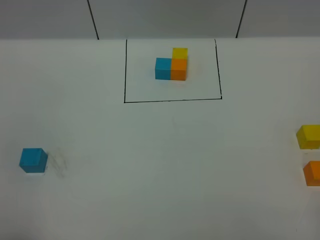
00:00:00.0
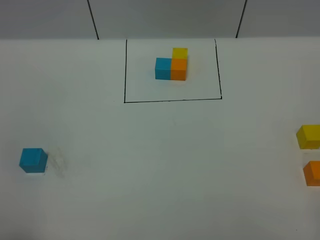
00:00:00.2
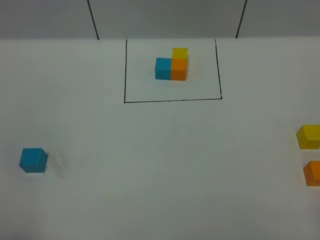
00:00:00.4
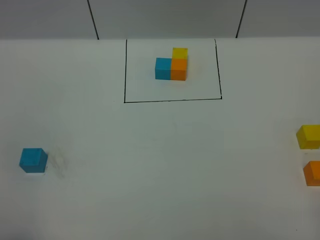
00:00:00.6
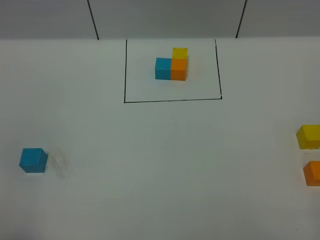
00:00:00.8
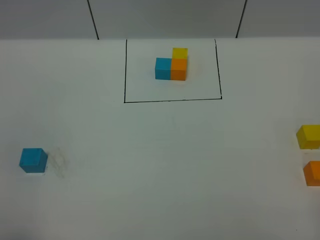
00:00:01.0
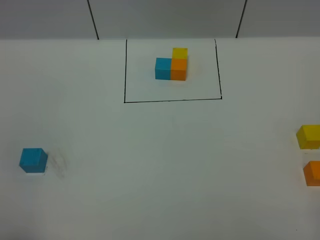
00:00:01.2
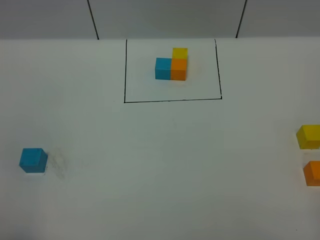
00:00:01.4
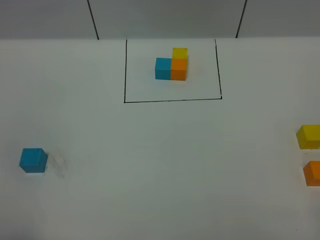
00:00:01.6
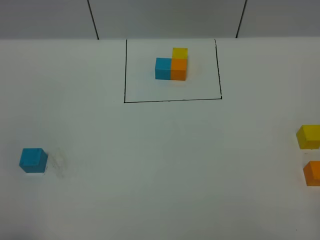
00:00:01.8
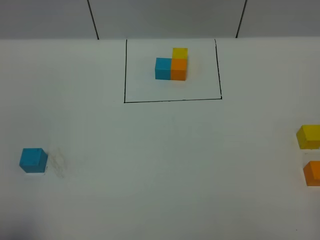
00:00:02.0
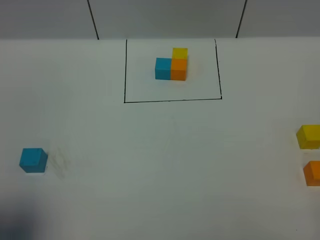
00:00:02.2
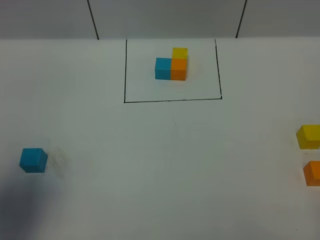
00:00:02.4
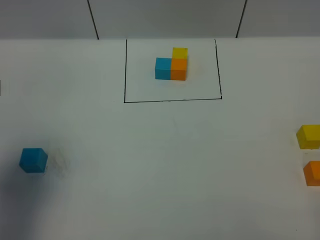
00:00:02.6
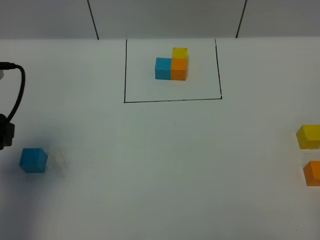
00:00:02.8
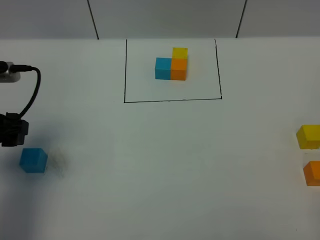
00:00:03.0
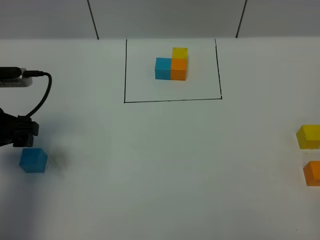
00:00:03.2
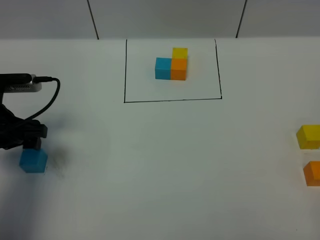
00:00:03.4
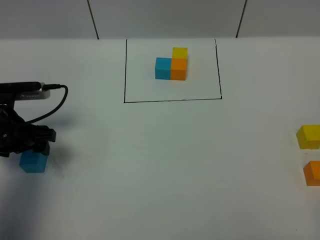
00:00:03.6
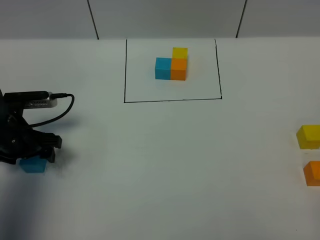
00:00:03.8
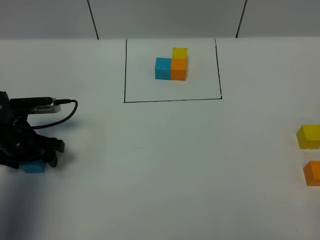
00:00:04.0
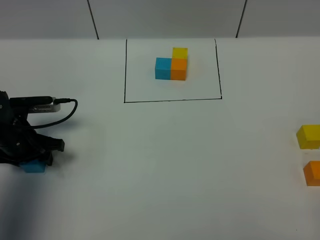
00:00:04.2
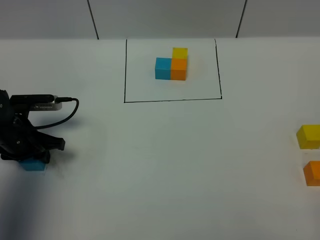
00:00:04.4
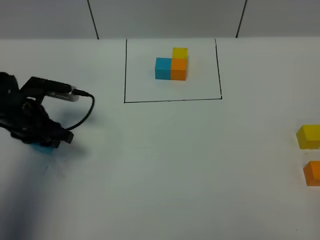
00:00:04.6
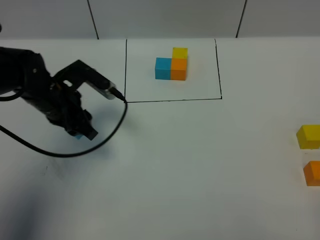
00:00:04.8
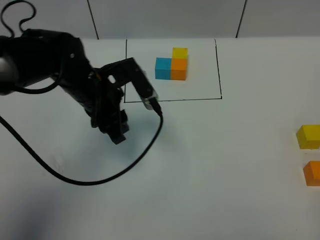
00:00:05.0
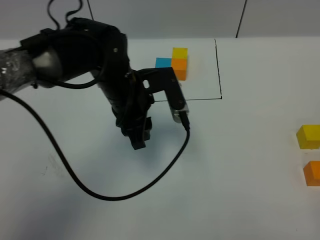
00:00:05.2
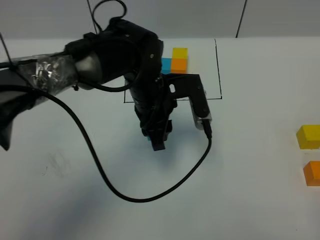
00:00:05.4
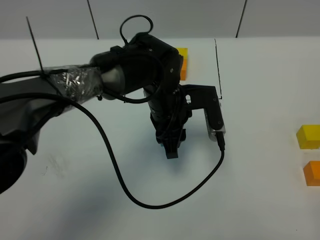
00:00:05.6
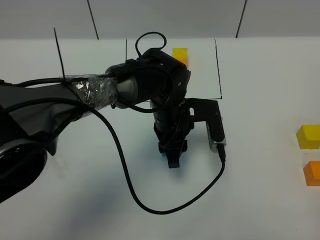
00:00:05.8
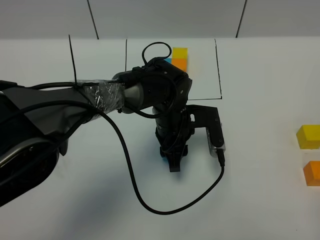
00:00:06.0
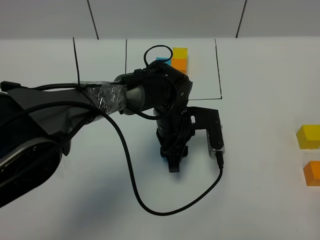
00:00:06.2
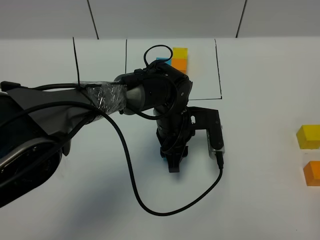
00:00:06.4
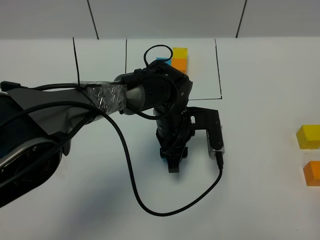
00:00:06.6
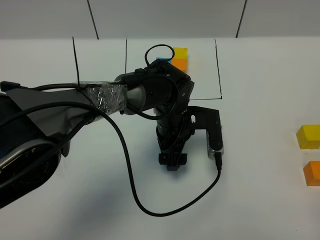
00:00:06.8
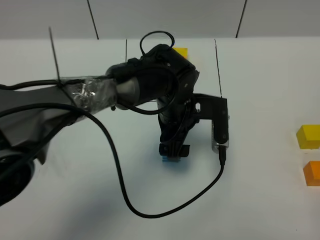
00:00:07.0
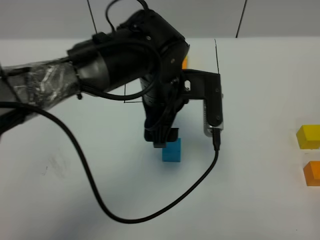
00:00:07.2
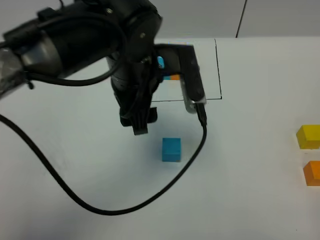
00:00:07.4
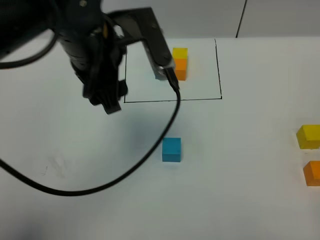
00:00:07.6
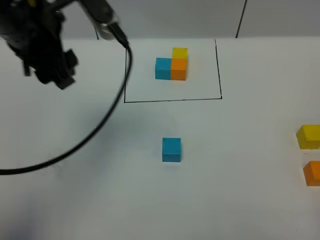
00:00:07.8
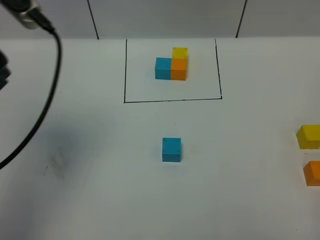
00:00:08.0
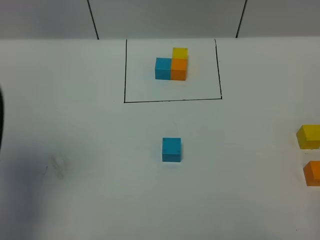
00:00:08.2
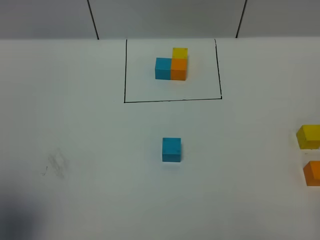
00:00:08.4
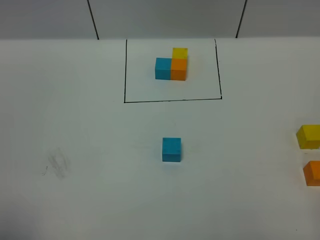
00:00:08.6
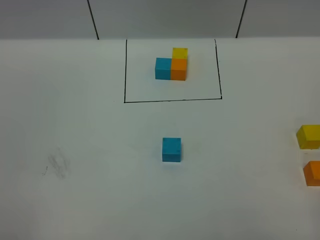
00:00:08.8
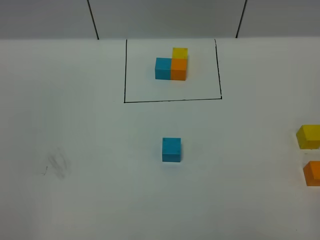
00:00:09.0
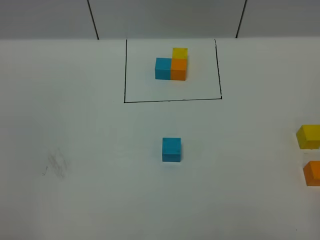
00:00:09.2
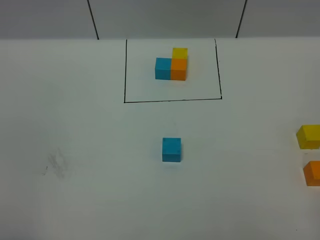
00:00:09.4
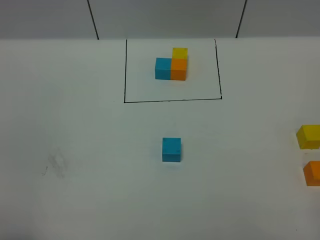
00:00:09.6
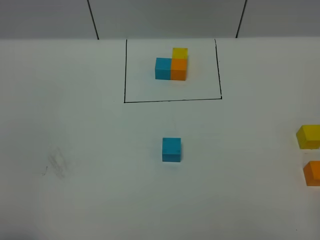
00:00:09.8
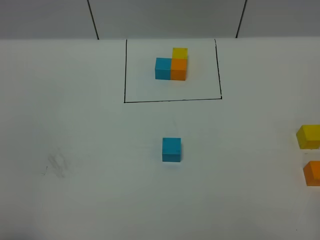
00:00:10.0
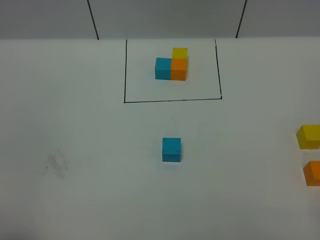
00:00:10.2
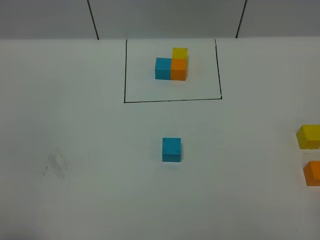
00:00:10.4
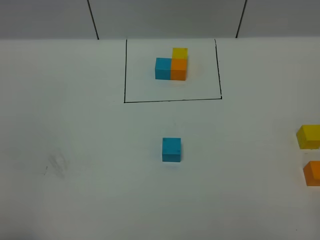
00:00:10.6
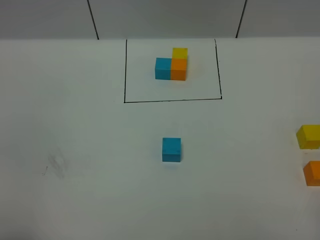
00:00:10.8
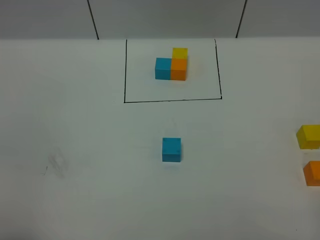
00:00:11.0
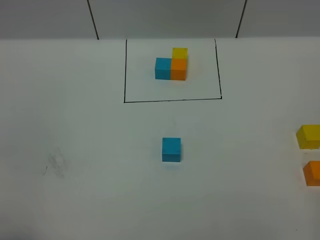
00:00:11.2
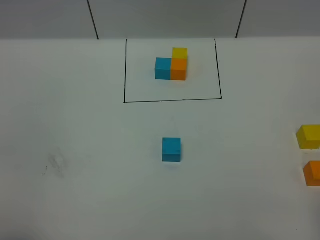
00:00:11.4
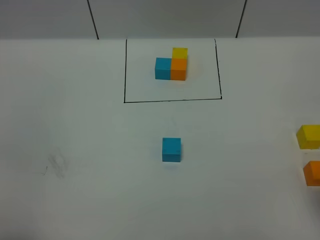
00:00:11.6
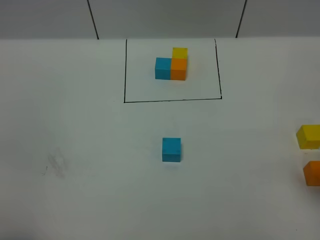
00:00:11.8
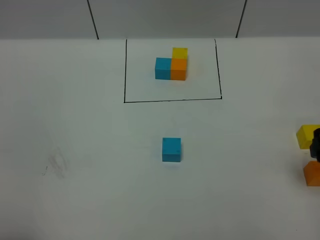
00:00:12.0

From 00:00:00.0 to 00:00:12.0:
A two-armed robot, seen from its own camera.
Task of the whole recording: According to the building block template in front, assemble the scattered blocks together.
Step, from 00:00:02.6 to 00:00:06.8: Put the blue cube in the center of the table.
From 00:00:00.0 to 00:00:01.6: Neither gripper changes place.
From 00:00:01.6 to 00:00:03.0: The left gripper heads forward, covering approximately 25 cm.
From 00:00:03.0 to 00:00:04.4: The left gripper is displaced downward and forward by some 15 cm, and closes.
From 00:00:04.4 to 00:00:06.0: The left gripper is displaced to the right by roughly 30 cm.
From 00:00:06.0 to 00:00:07.6: The left gripper heads upward and to the left, covering about 25 cm, and opens up.
From 00:00:07.6 to 00:00:09.0: The left gripper shifts about 40 cm backward and to the left.
From 00:00:10.4 to 00:00:12.0: The right gripper moves forward, roughly 20 cm, and opens its fingers.

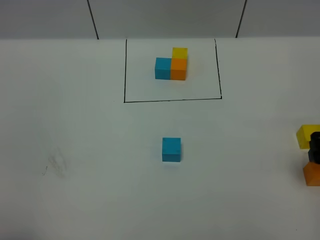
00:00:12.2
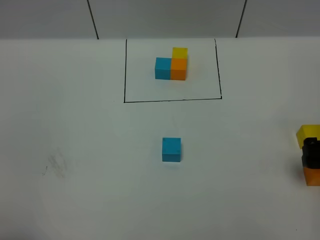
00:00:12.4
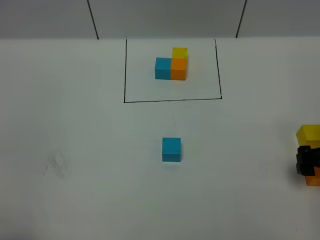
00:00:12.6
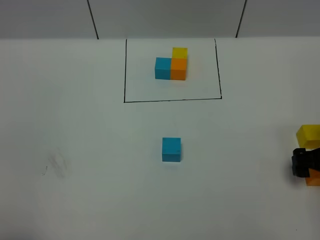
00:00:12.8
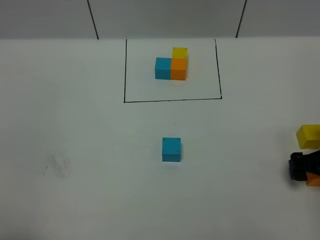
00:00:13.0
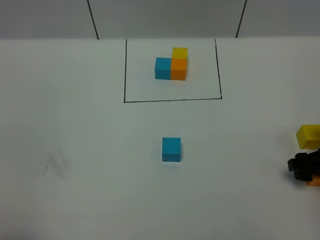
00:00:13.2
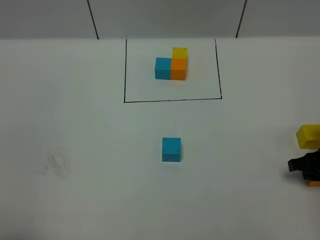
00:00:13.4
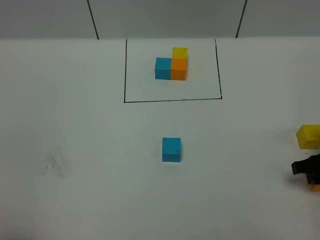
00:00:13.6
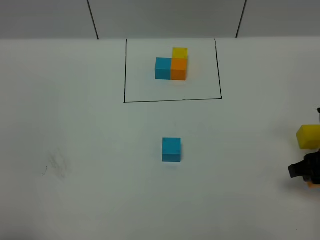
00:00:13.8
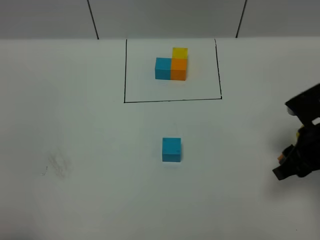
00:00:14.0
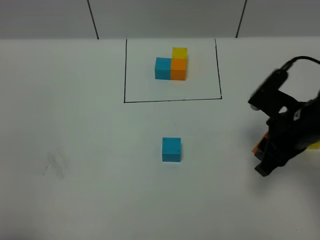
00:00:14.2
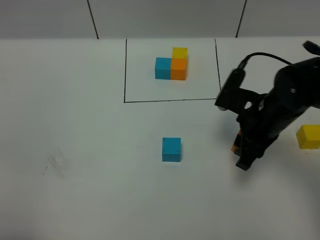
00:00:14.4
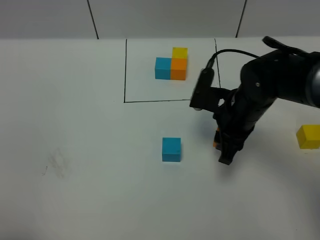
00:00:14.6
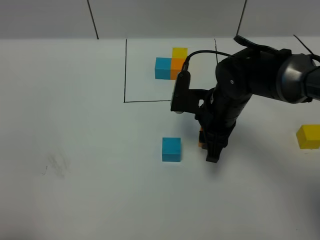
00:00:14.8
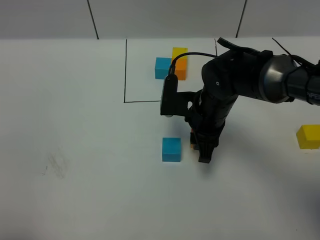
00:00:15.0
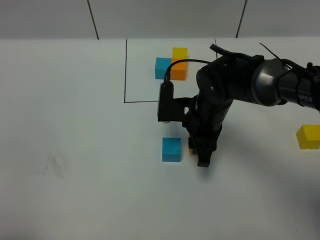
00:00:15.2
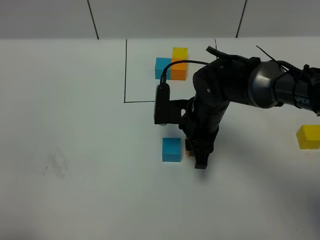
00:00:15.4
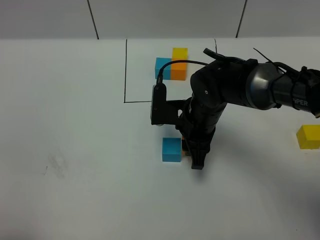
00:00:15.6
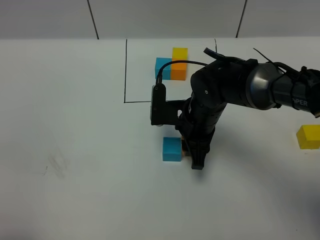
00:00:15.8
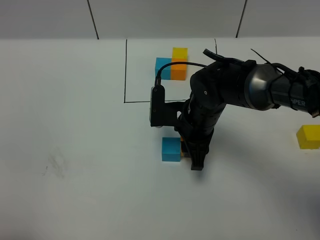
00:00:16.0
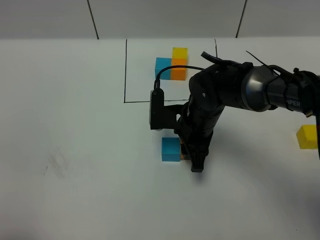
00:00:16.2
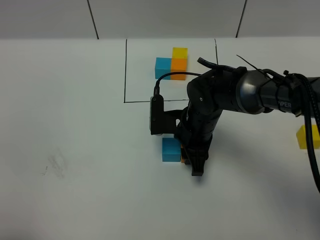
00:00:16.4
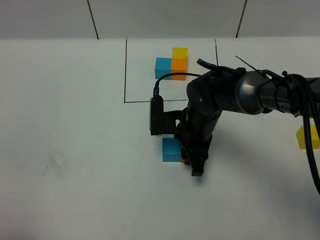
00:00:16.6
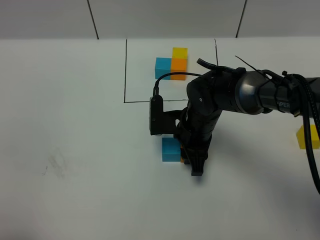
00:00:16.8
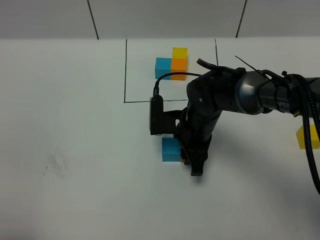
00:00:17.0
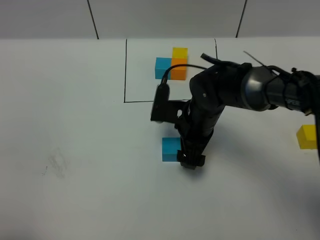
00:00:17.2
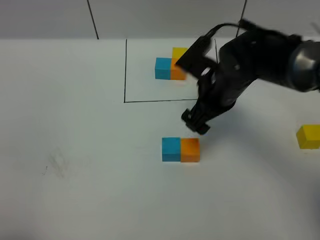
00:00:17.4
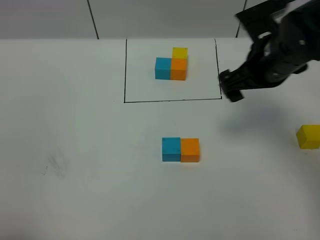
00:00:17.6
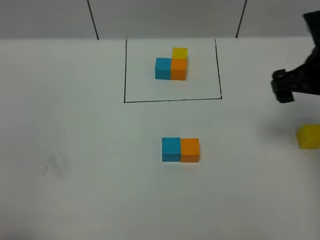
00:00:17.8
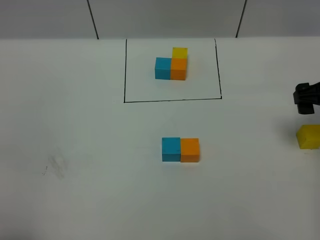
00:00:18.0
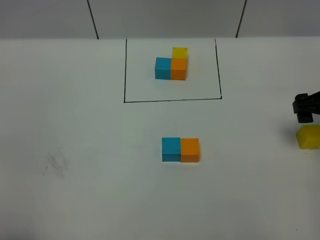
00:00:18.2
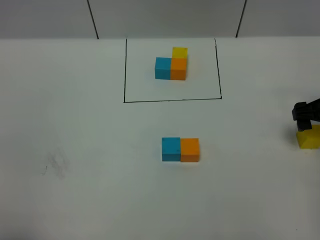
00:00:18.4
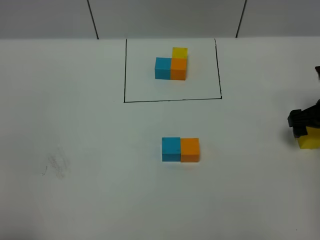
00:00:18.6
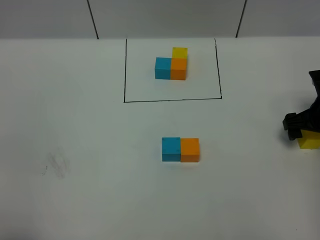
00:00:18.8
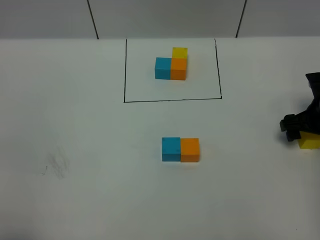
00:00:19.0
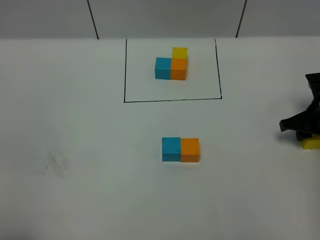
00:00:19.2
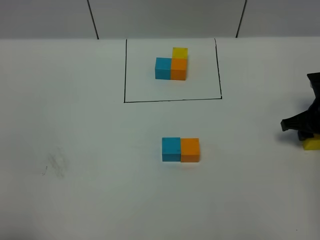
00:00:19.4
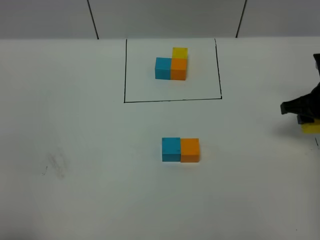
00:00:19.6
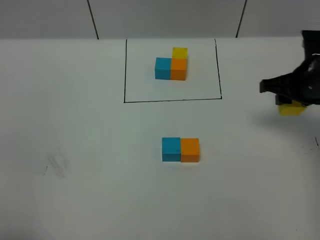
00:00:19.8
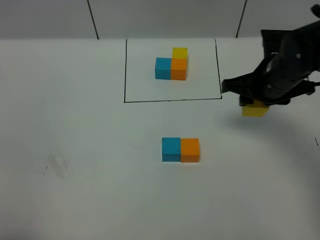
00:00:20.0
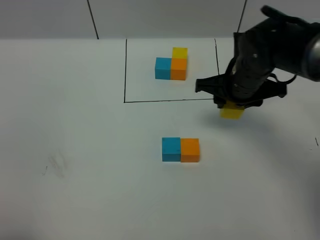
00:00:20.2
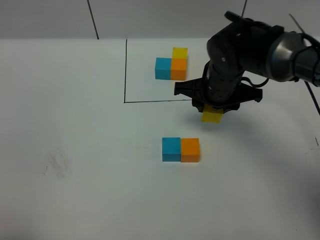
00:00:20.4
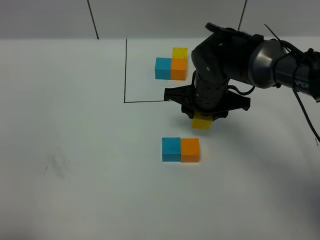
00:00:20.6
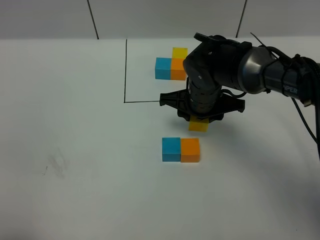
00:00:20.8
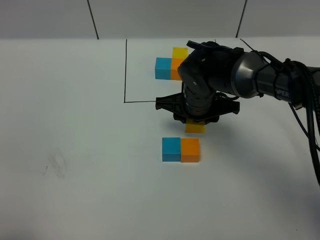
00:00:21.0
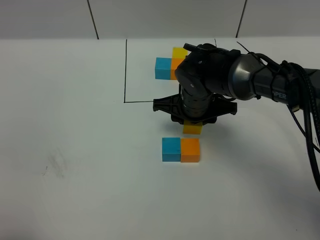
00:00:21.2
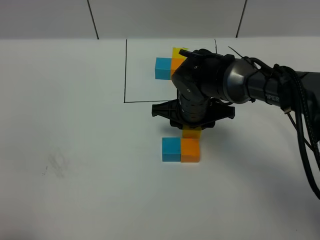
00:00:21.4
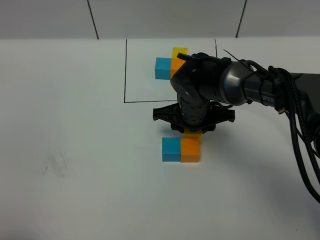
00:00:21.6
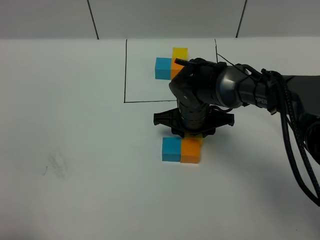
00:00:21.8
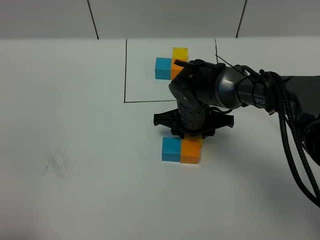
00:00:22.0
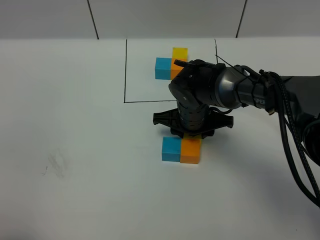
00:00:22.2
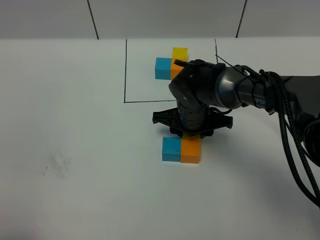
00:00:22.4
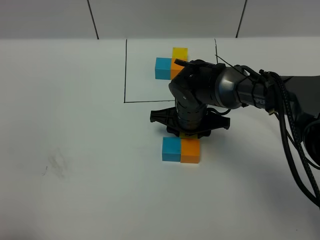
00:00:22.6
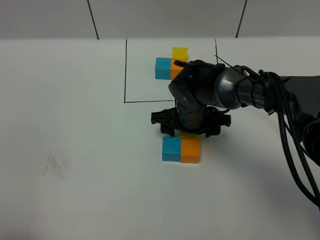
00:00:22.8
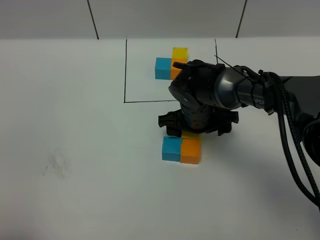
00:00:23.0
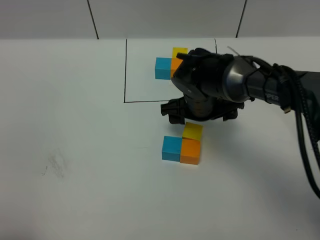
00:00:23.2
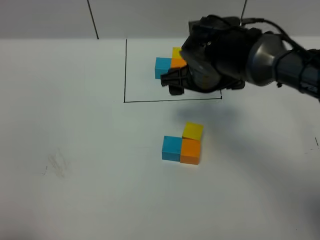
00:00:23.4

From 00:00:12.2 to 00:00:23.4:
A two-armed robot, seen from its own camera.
Task of the whole recording: According to the building block template in front, assemble the scattered blocks together.
Step, from 00:00:12.2 to 00:00:17.2: Put the orange cube on the right of the blue cube.
Step, from 00:00:17.4 to 00:00:23.2: Put the yellow cube on the behind of the orange cube.
From 00:00:12.2 to 00:00:13.8: The right gripper closes up.
From 00:00:13.8 to 00:00:15.4: The right gripper moves to the left and forward, approximately 25 cm.
From 00:00:15.4 to 00:00:17.0: The grippers move only a little.
From 00:00:17.0 to 00:00:18.6: The right gripper is displaced to the right by some 25 cm, and opens its fingers.
From 00:00:18.6 to 00:00:20.2: The right gripper heads to the left, covering approximately 20 cm, and closes up.
From 00:00:20.2 to 00:00:21.8: The right gripper is displaced to the left and downward by approximately 10 cm.
From 00:00:21.8 to 00:00:23.4: The right gripper travels upward by about 10 cm, and opens its fingers.
